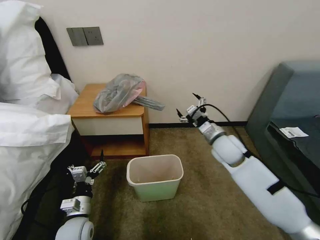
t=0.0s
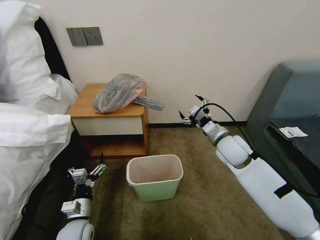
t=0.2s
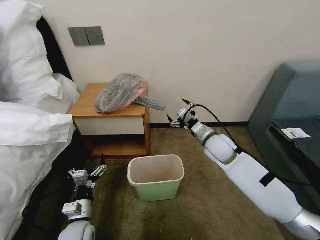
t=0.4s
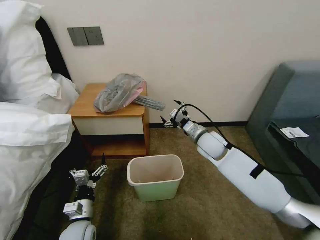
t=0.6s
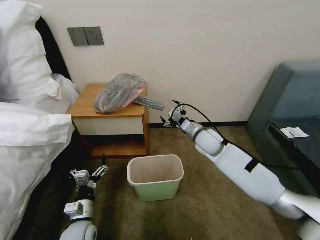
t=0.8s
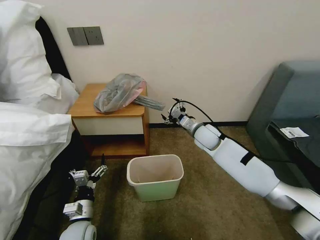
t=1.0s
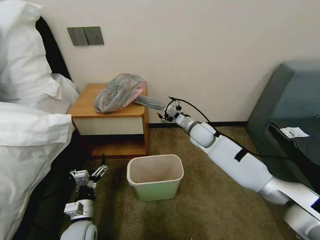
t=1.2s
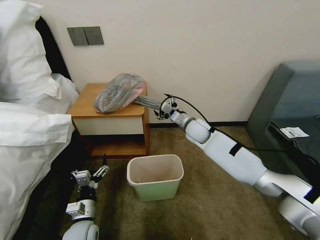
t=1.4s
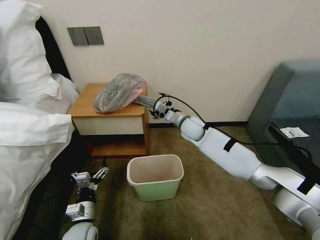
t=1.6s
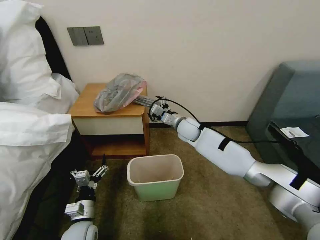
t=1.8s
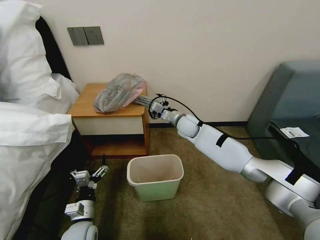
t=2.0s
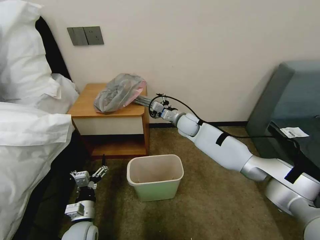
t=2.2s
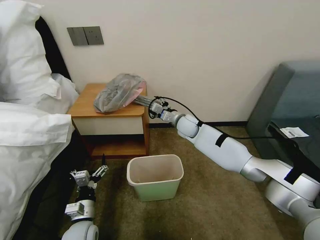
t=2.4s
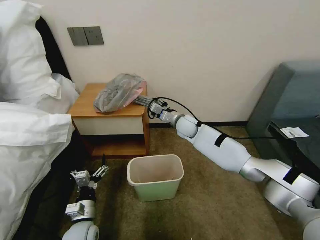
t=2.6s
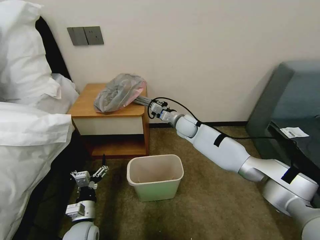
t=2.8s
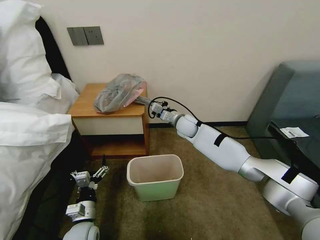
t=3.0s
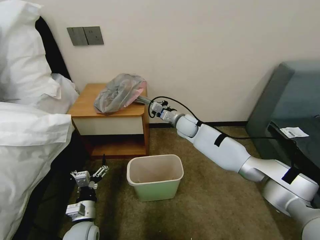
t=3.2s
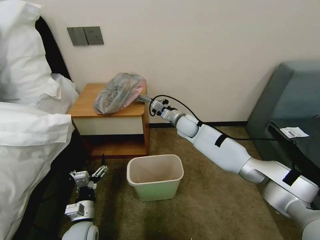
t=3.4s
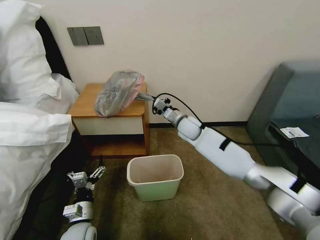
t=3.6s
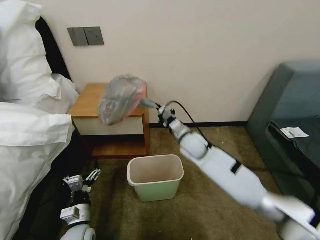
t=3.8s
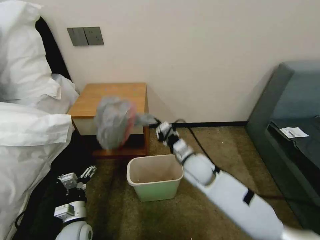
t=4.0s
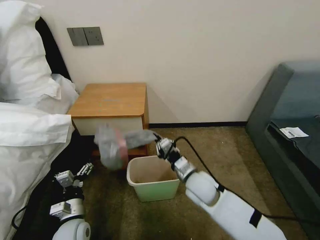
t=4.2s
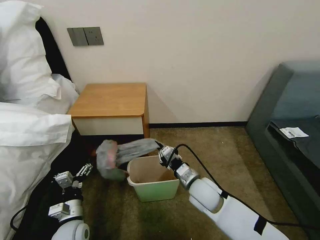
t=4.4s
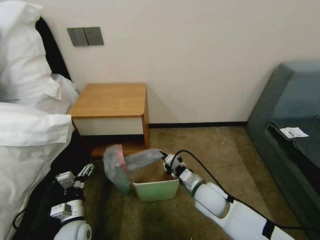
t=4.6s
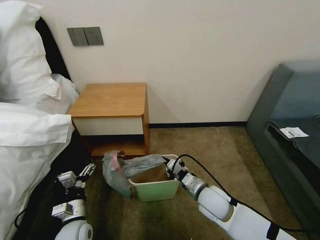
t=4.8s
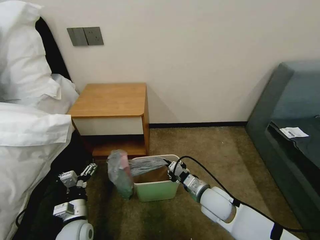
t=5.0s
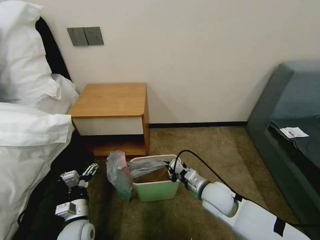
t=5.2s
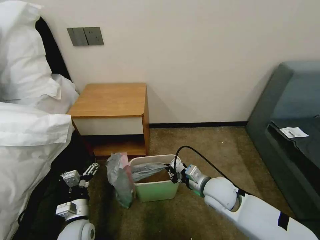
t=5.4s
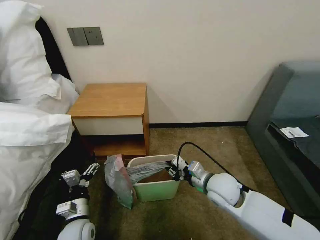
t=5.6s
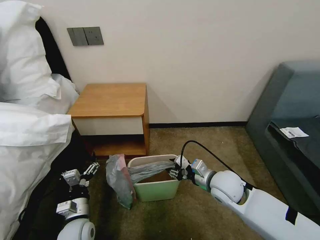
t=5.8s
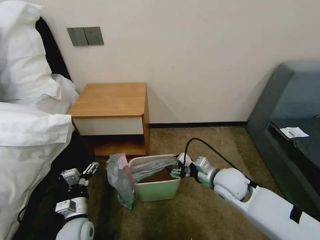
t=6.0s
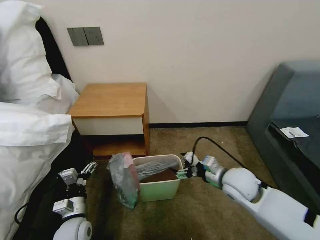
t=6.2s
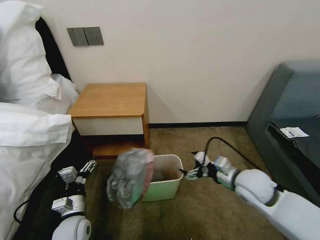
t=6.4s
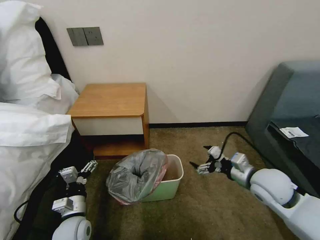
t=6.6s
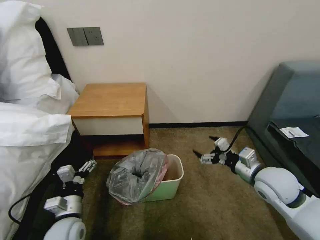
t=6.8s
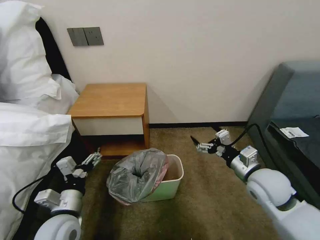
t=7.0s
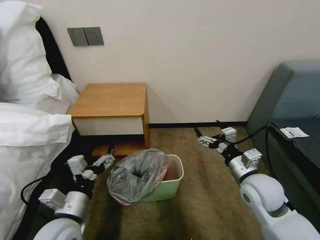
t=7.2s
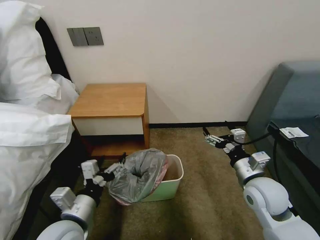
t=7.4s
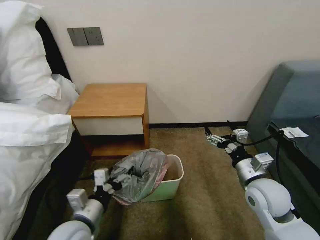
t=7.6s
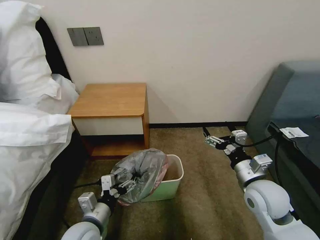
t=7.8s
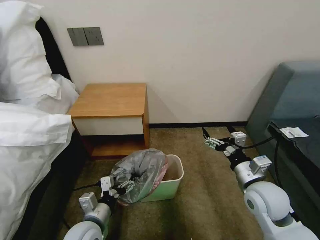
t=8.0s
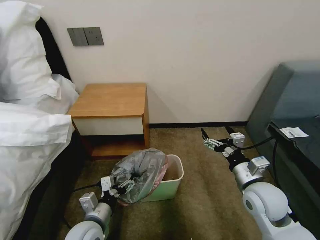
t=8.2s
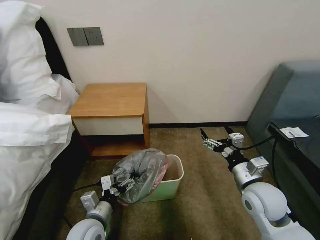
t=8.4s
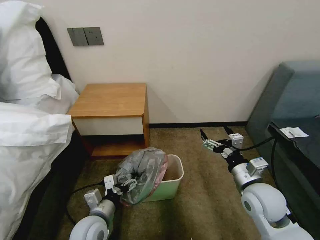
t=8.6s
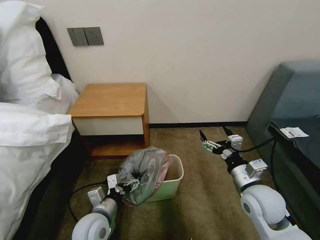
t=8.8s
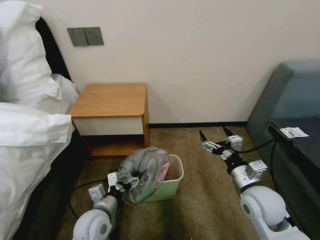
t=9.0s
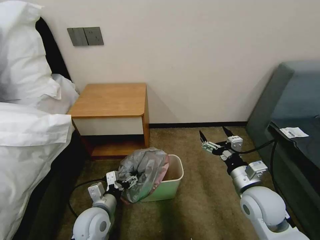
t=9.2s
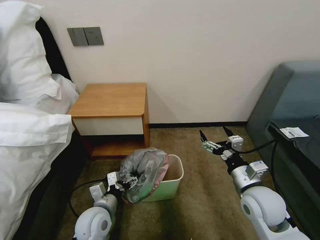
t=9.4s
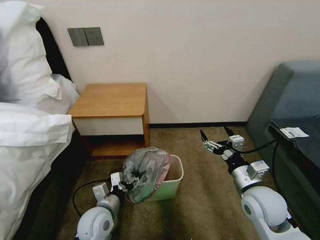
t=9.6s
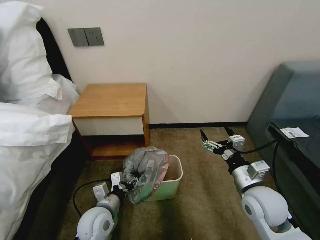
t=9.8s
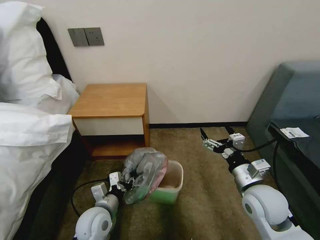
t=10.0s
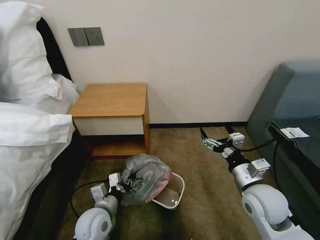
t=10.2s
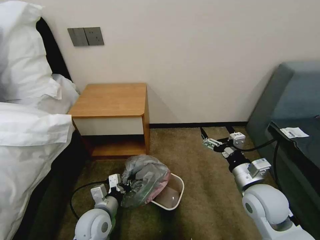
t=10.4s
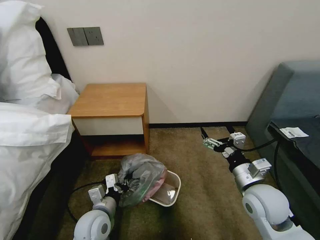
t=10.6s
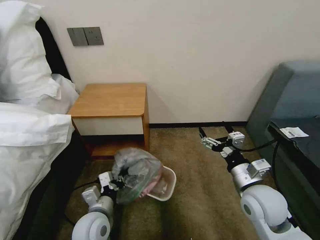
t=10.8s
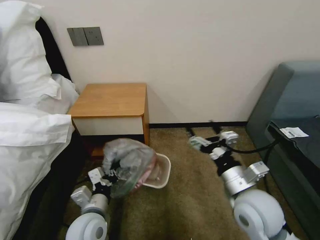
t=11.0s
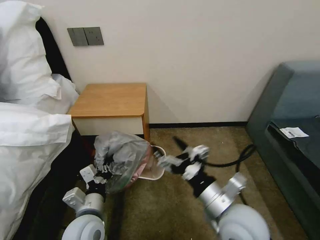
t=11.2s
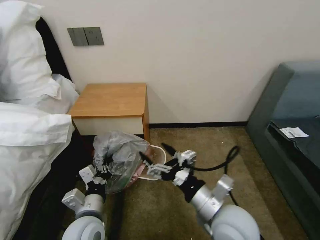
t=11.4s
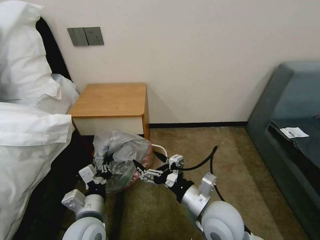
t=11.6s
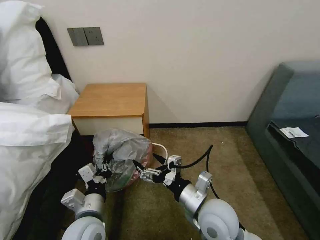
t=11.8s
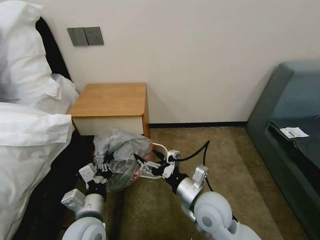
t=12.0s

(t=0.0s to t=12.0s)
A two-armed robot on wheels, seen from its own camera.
Task of the whole recording: Pick up the garbage bag from the table and place it over the trash can.
t=0.0s - t=1.6s: The right gripper is displaced forward and to the left by some 15 cm.
t=1.6s - t=3.0s: The right gripper closes.
t=3.0s - t=4.4s: The right gripper is displaced backward by about 25 cm.
t=4.4s - t=6.0s: The right gripper heads to the right, covering about 10 cm, and opens.
t=6.0s - t=7.6s: The right gripper moves to the right, approximately 5 cm, while the left gripper heads upward, covering roughly 10 cm.
t=7.6s - t=9.0s: The left gripper travels downward by approximately 5 cm.
t=9.0s - t=10.4s: The left gripper closes up.
t=10.4s - t=12.0s: The right gripper moves to the left, some 15 cm, while the left gripper goes some 10 cm upward.

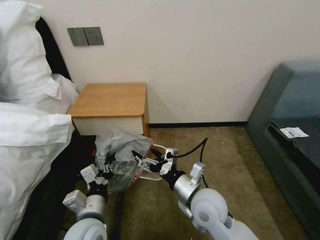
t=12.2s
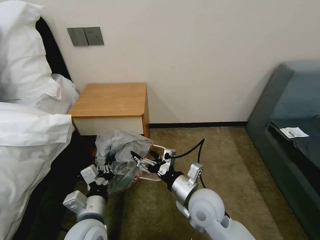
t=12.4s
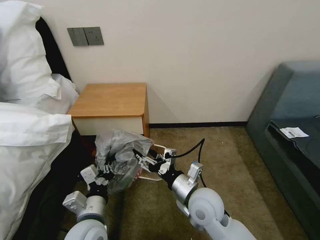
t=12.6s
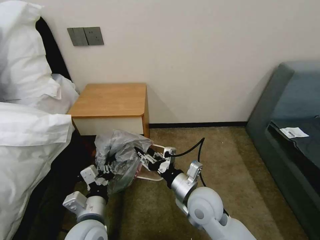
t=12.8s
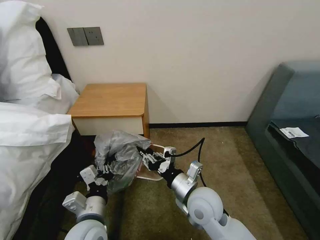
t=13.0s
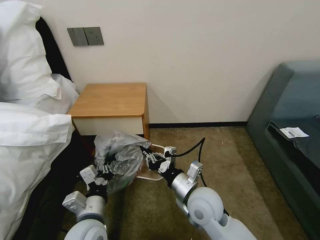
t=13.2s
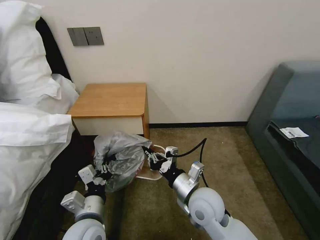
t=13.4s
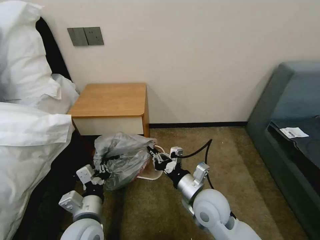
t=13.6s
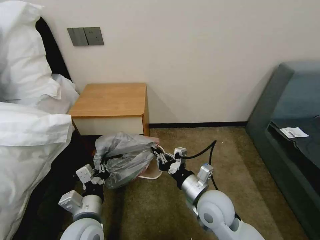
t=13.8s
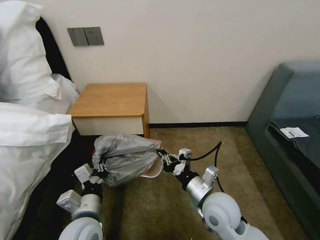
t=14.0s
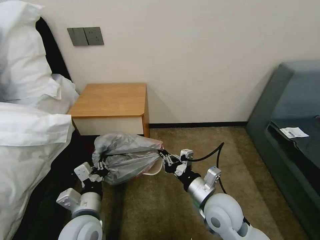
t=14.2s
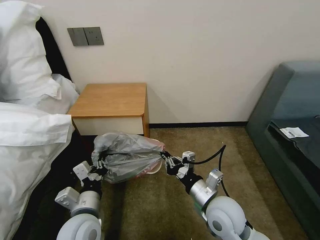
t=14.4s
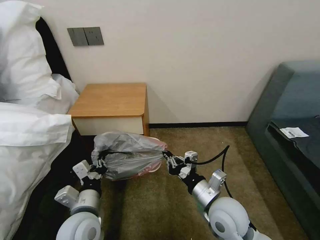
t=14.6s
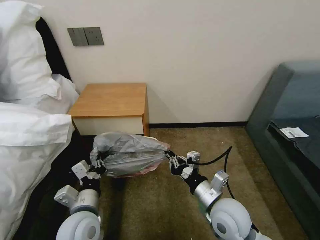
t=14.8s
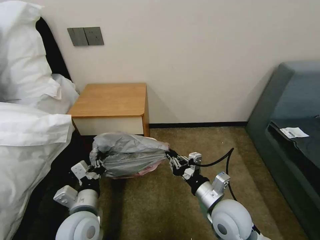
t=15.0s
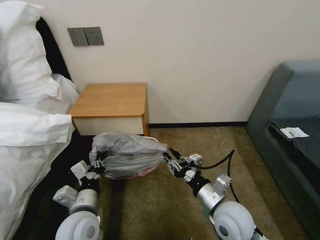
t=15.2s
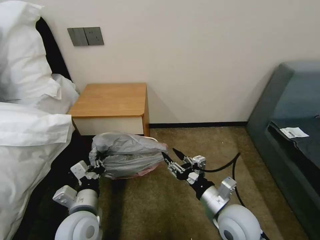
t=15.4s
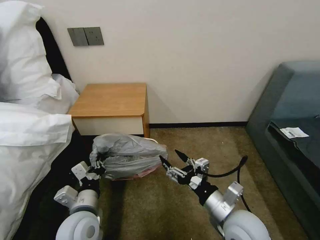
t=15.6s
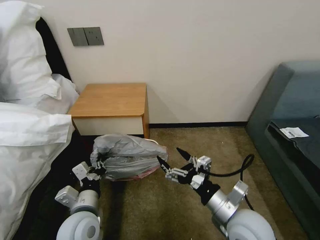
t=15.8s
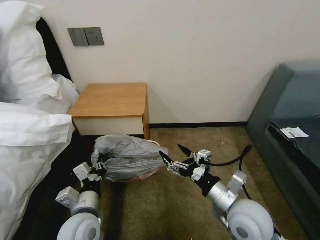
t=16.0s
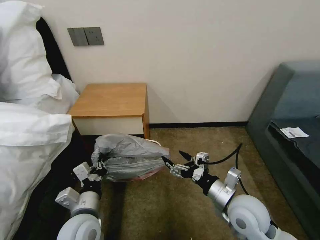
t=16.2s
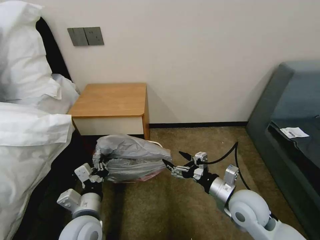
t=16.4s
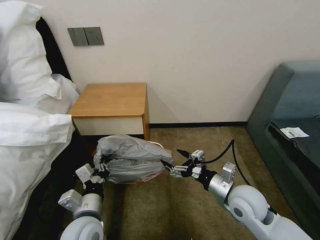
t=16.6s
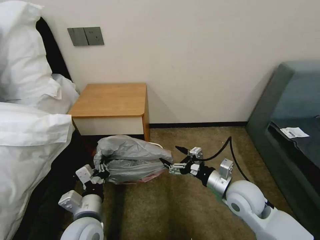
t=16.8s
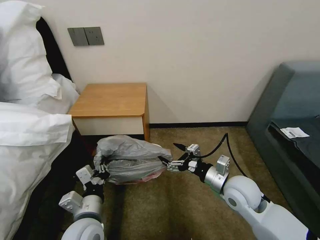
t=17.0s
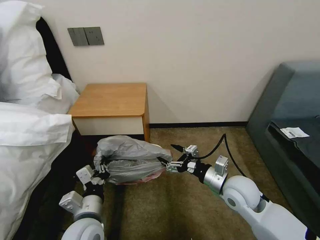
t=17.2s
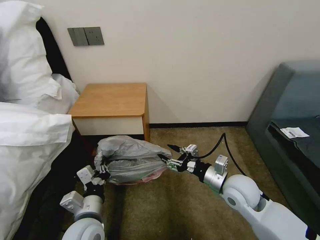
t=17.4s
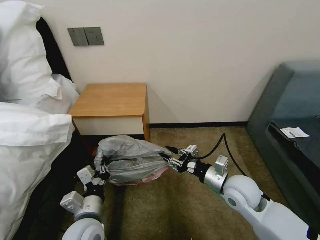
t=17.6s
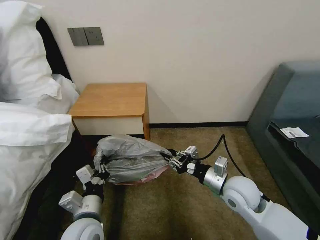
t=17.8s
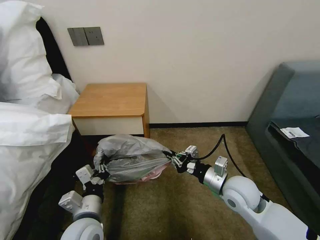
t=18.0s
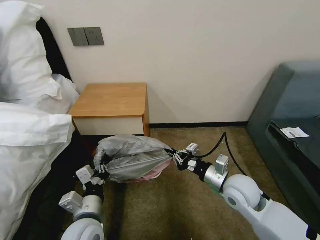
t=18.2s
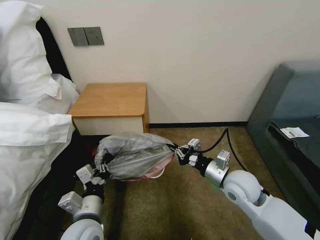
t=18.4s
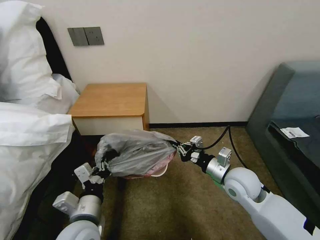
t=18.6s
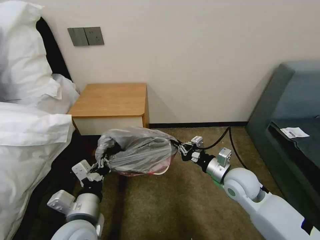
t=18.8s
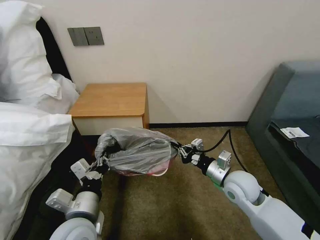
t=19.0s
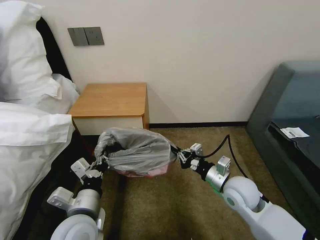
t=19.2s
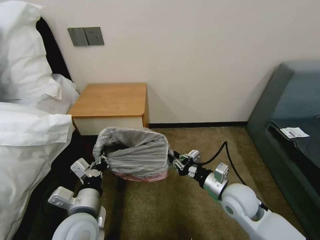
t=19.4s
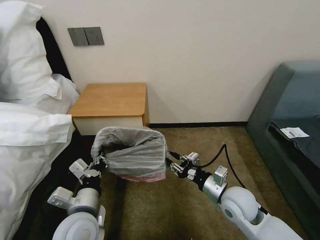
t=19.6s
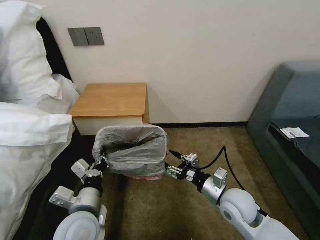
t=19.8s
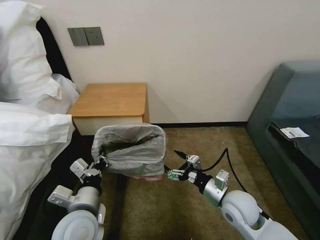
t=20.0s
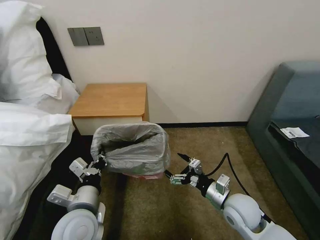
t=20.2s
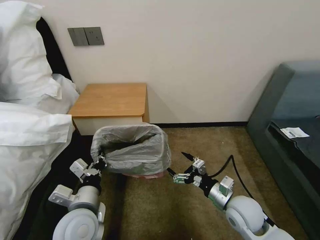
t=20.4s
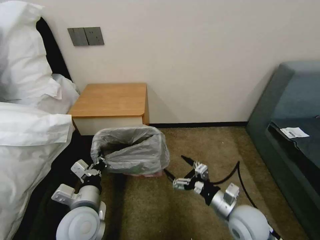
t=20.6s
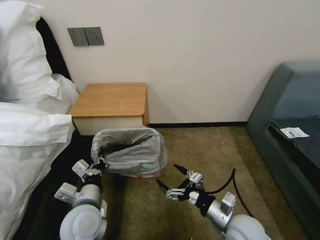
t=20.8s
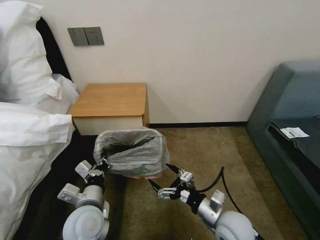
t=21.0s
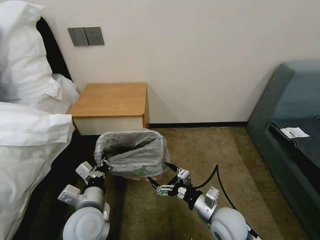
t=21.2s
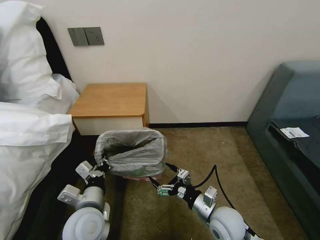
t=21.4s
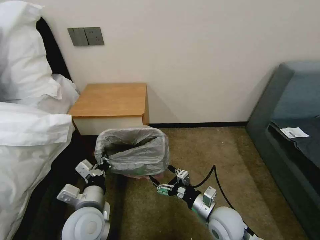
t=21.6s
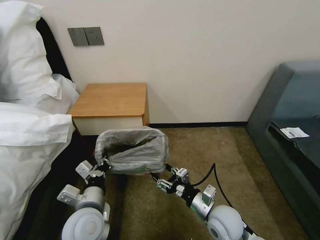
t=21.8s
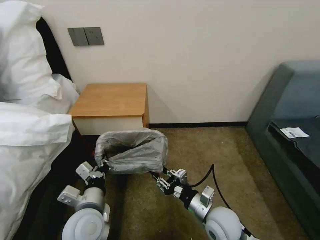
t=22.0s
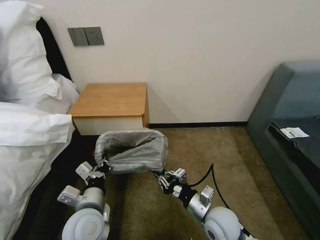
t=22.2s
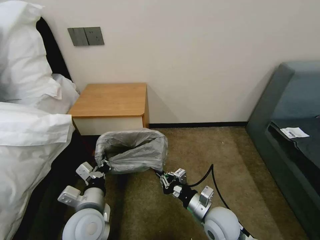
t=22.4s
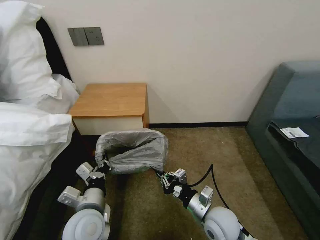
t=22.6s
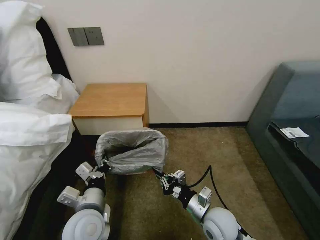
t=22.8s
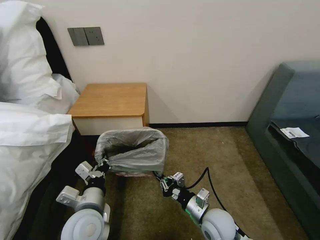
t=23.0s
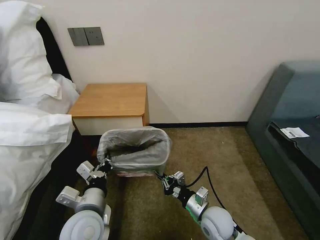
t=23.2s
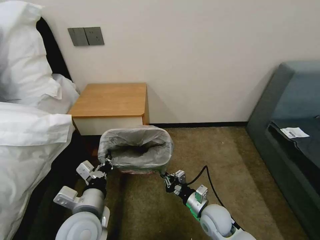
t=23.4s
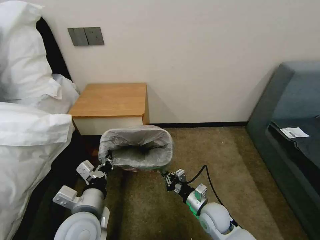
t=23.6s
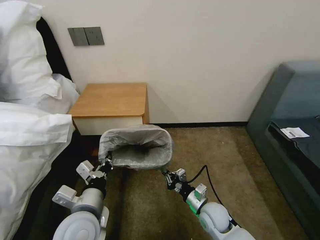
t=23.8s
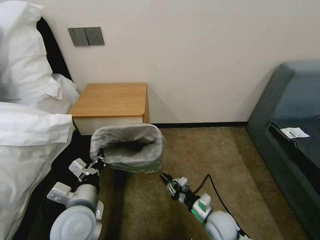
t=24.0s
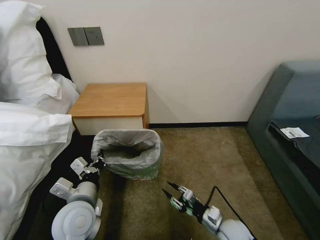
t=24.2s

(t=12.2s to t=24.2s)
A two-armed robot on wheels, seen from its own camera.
Task of the whole recording: Pick up the garbage bag from the table and place it over the trash can.
t=12.2s - t=13.8s: The right gripper closes its fingers.
t=13.8s - t=15.2s: The right gripper opens its fingers.
t=15.2s - t=16.6s: The right gripper is displaced to the right by roughly 5 cm, and opens up.
t=16.6s - t=18.2s: The right gripper closes up.
t=18.2s - t=19.8s: The right gripper opens.
t=19.8s - t=21.2s: The right gripper shifts by some 5 cm, and opens its fingers.
t=21.2s - t=22.6s: The right gripper closes.
t=22.6s - t=24.2s: The right gripper heads downward and to the right, covering some 10 cm, and opens up.
